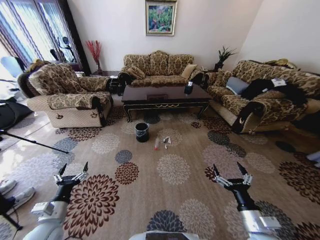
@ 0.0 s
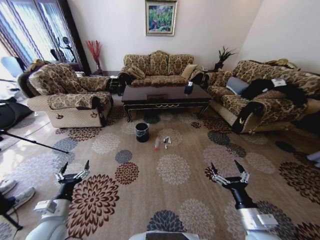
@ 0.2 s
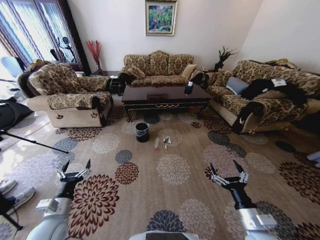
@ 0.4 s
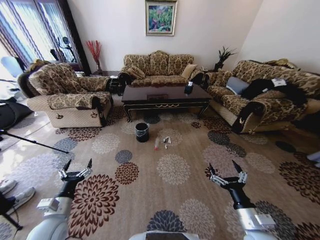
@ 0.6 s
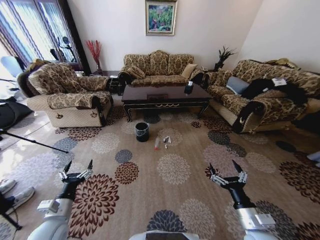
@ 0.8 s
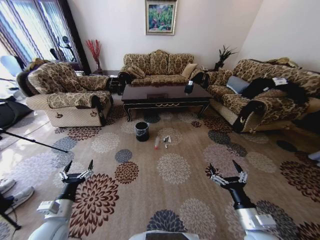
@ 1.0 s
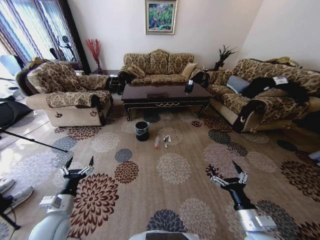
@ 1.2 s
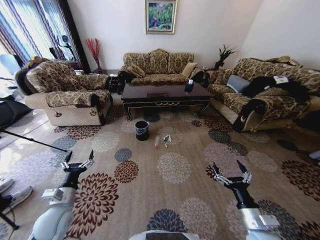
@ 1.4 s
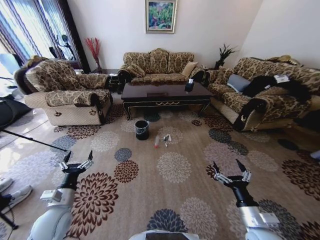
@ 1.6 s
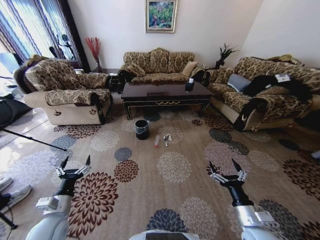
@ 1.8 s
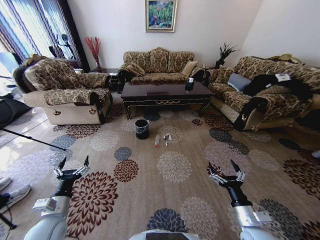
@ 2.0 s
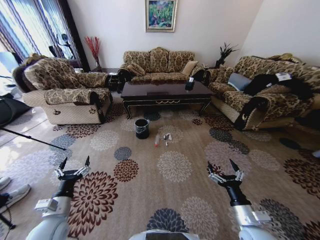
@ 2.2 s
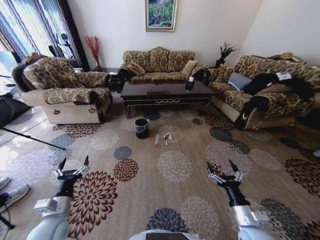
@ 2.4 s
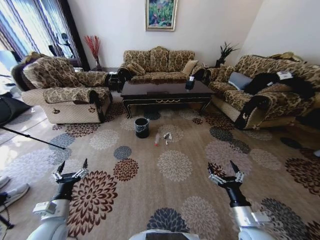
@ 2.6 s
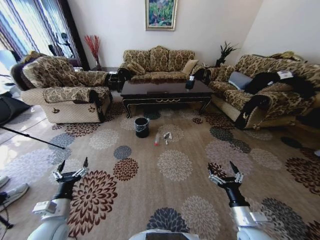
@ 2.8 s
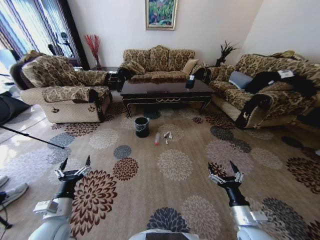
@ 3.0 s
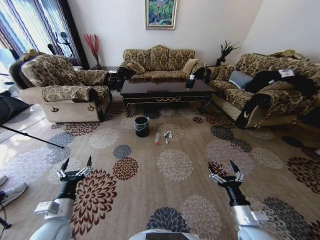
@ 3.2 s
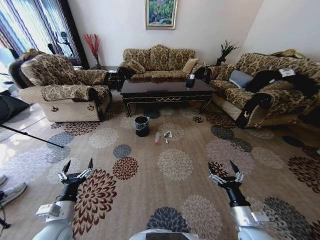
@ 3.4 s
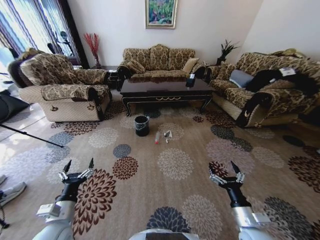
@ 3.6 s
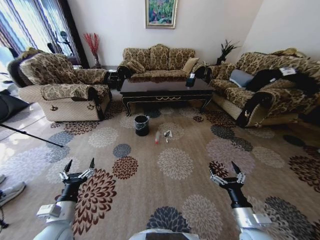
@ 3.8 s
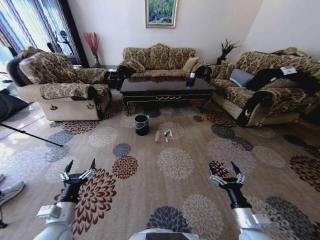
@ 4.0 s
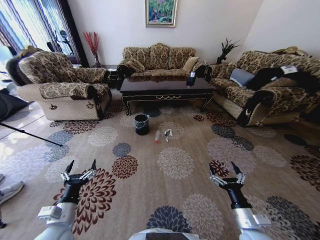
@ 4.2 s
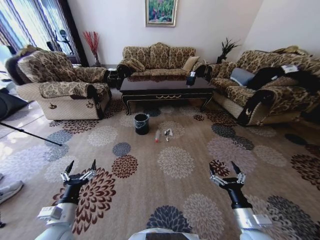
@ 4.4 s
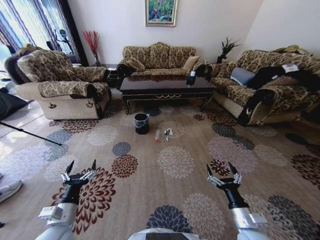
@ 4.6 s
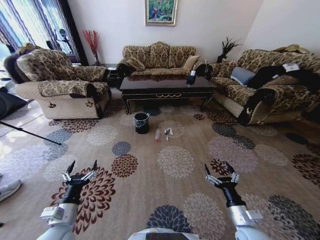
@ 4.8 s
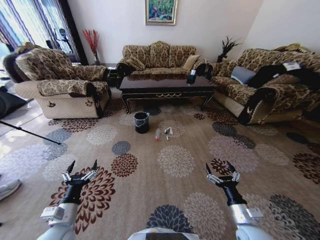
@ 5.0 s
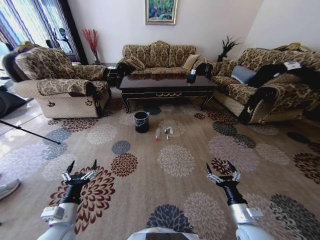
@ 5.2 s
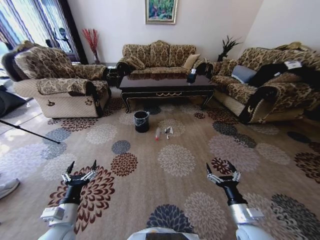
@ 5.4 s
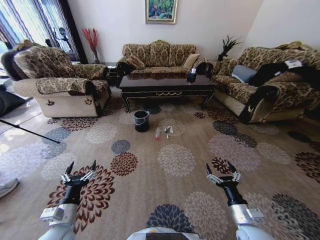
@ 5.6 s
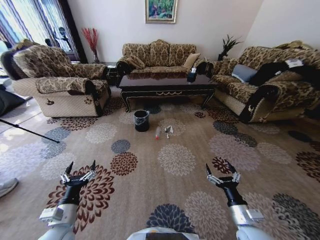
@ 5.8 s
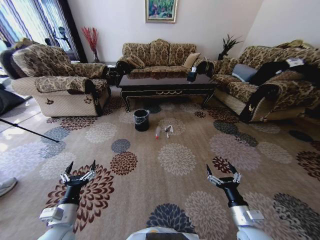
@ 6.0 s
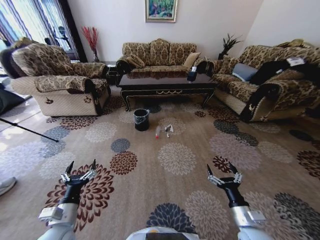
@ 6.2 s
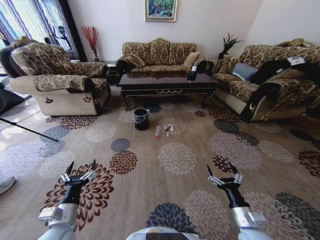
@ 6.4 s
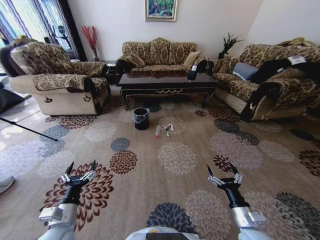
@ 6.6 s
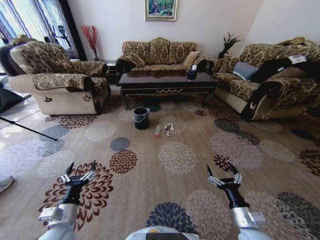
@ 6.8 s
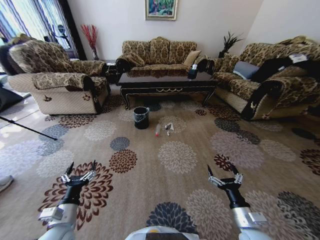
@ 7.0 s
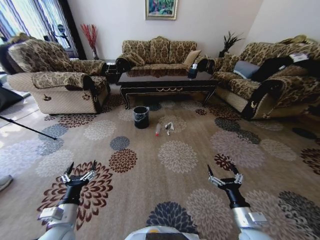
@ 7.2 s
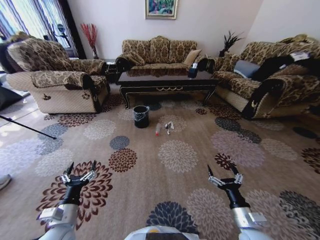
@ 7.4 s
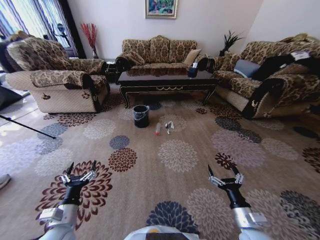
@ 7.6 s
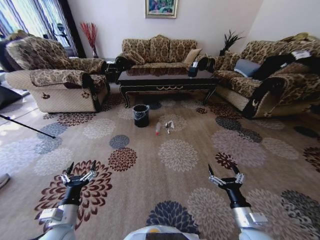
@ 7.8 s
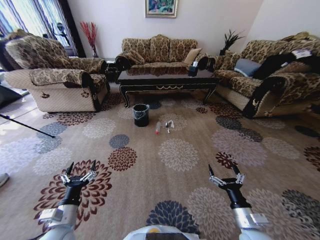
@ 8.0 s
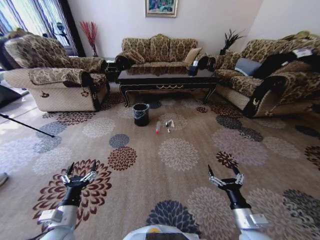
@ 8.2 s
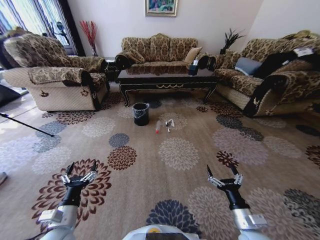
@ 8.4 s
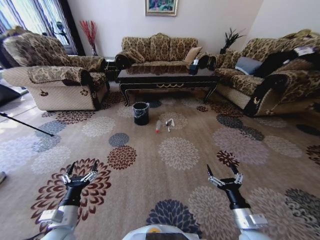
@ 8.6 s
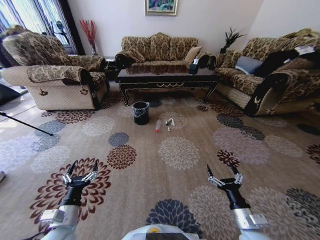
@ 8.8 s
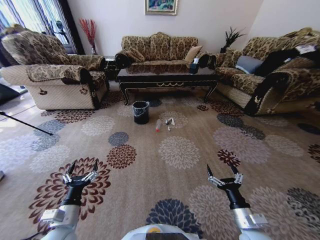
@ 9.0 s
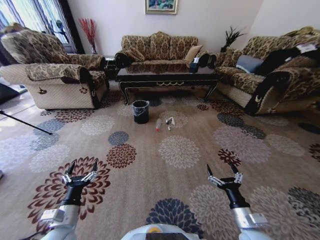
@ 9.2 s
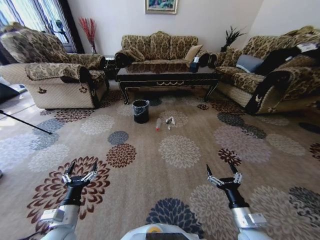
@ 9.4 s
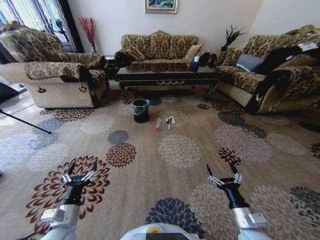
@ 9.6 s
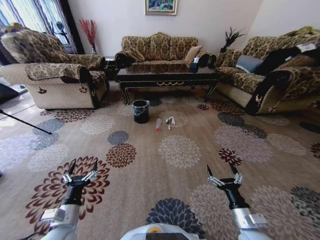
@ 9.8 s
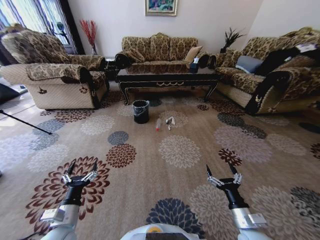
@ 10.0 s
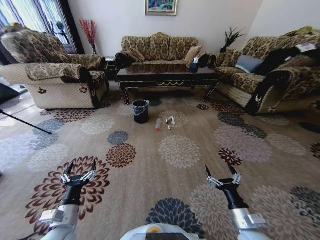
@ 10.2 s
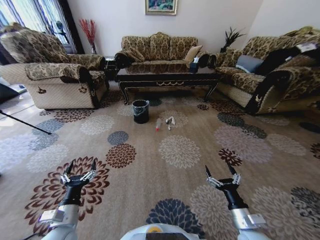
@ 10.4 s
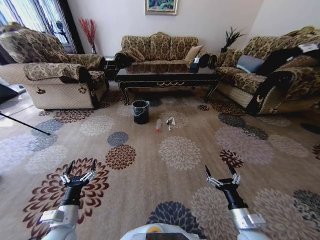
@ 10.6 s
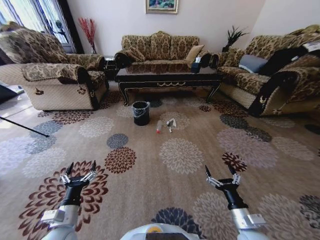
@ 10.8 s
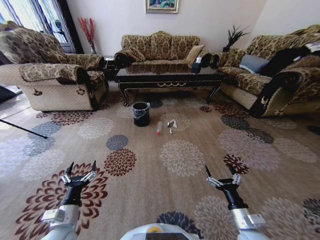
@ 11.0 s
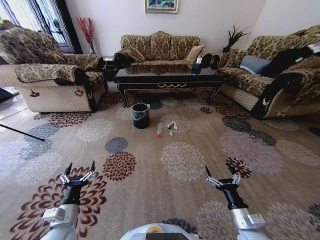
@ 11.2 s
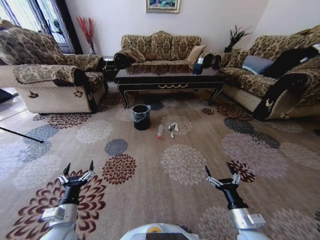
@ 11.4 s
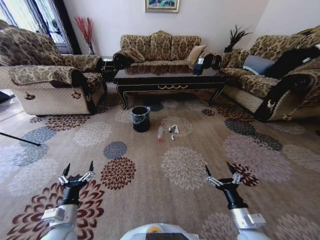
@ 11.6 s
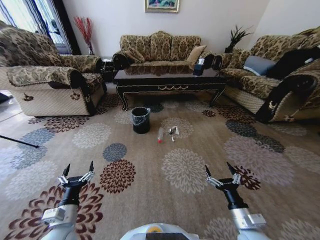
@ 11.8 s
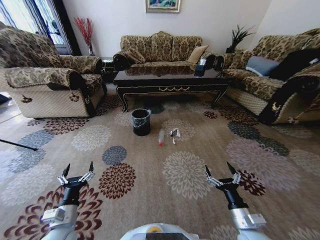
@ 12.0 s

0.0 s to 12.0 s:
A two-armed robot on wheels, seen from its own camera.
Task of the whole recording: Move to the front of the table and pick up the trash from the floor, then place it into the trash bin.
9.0 to 10.4 s: Neither gripper changes place.

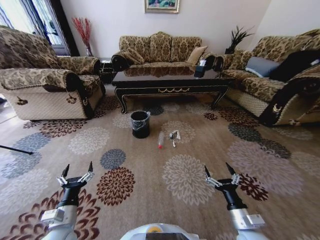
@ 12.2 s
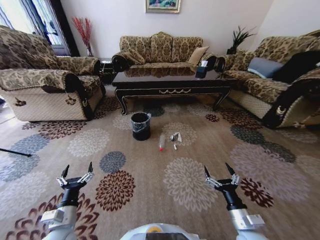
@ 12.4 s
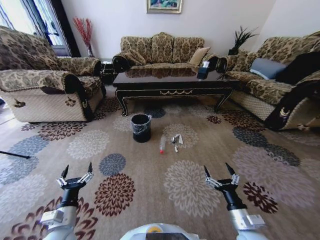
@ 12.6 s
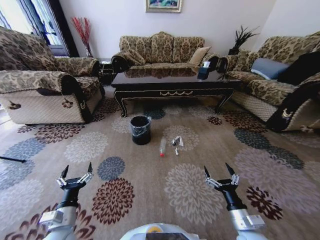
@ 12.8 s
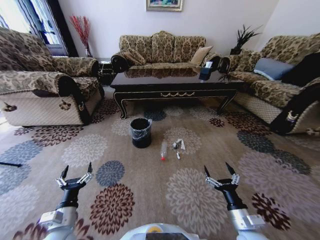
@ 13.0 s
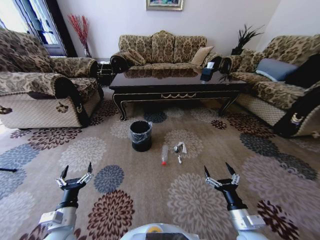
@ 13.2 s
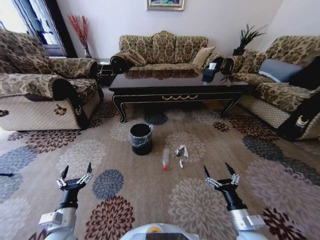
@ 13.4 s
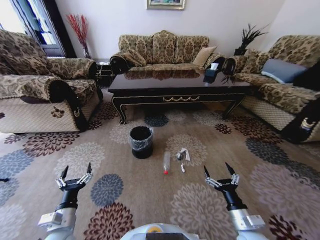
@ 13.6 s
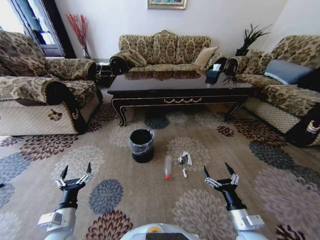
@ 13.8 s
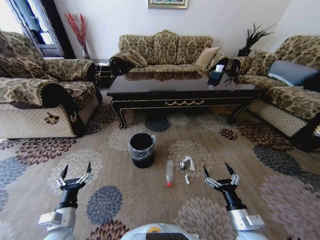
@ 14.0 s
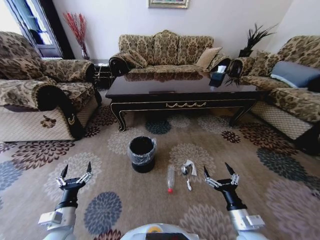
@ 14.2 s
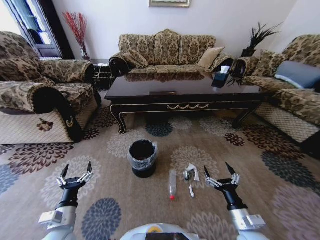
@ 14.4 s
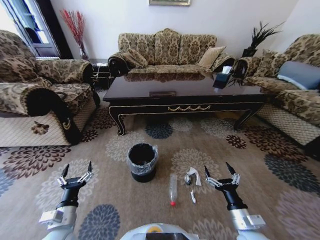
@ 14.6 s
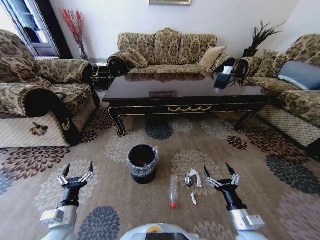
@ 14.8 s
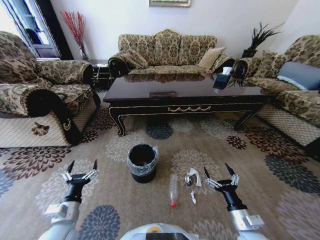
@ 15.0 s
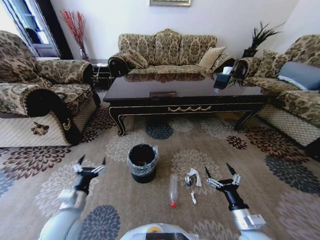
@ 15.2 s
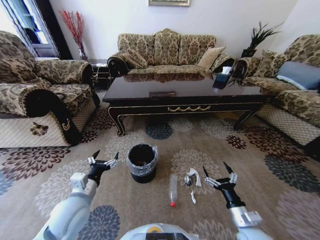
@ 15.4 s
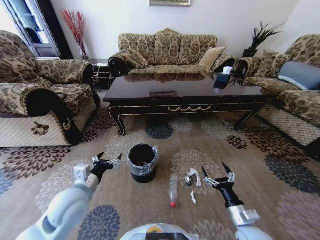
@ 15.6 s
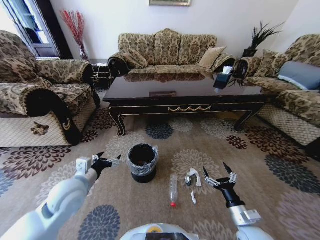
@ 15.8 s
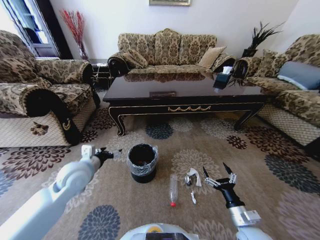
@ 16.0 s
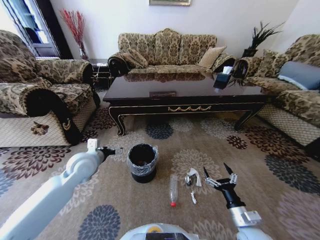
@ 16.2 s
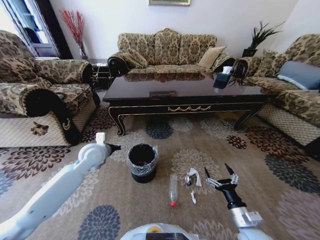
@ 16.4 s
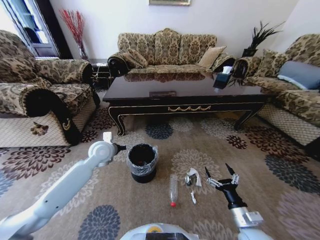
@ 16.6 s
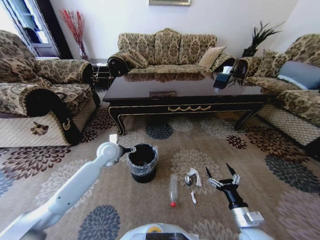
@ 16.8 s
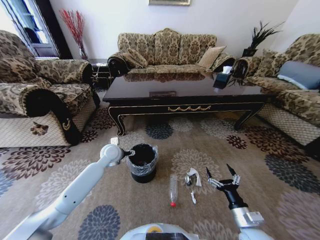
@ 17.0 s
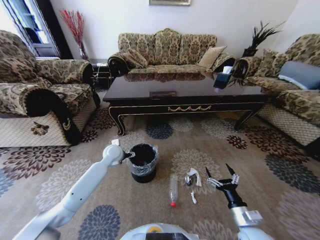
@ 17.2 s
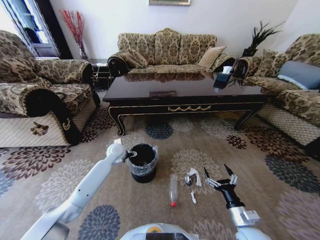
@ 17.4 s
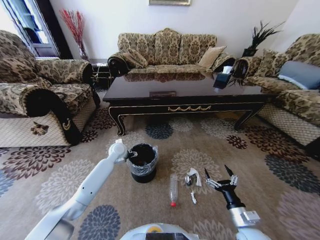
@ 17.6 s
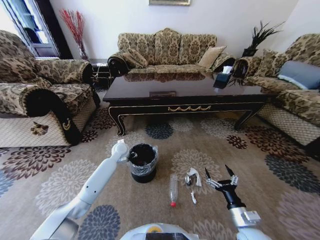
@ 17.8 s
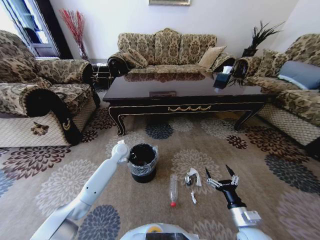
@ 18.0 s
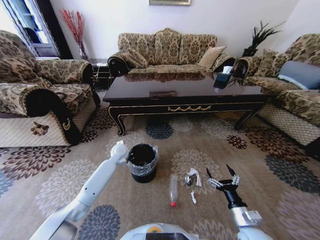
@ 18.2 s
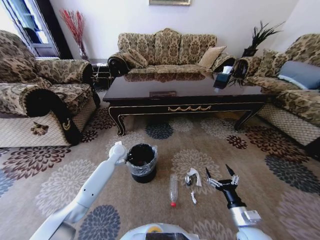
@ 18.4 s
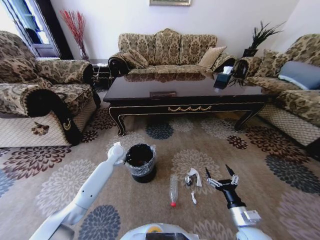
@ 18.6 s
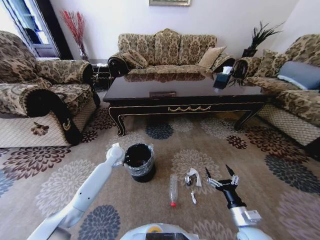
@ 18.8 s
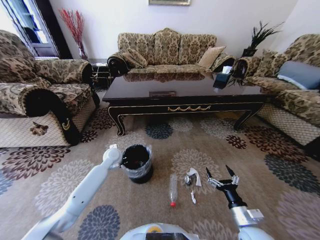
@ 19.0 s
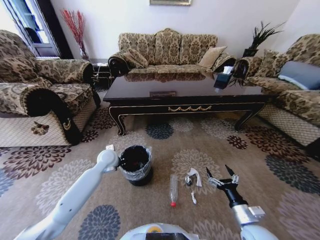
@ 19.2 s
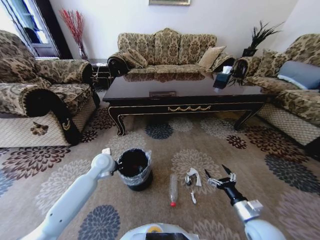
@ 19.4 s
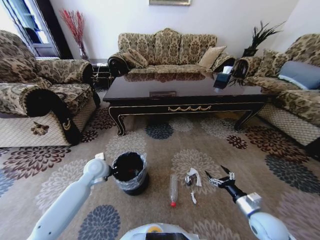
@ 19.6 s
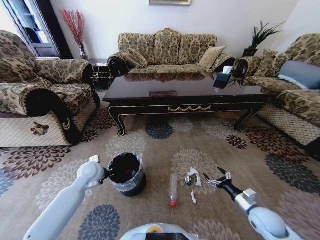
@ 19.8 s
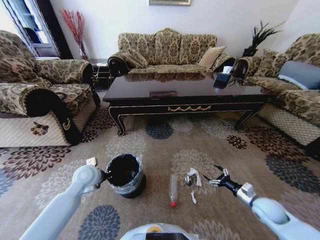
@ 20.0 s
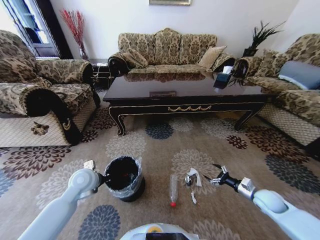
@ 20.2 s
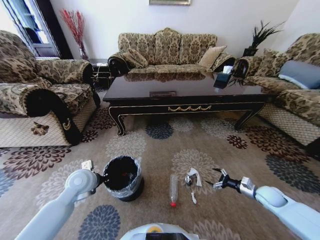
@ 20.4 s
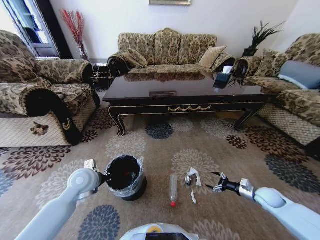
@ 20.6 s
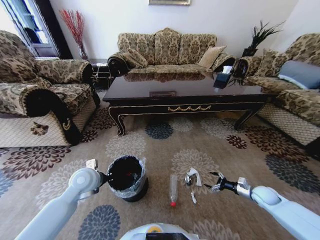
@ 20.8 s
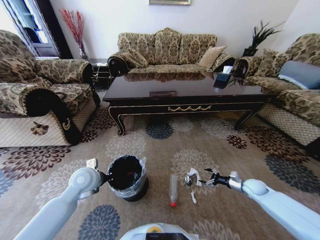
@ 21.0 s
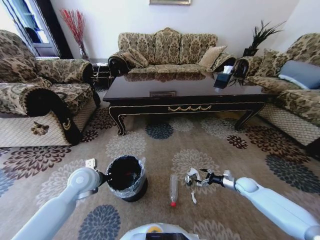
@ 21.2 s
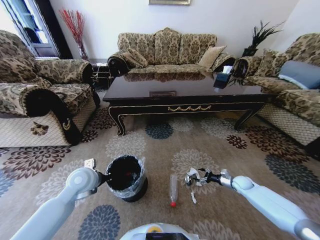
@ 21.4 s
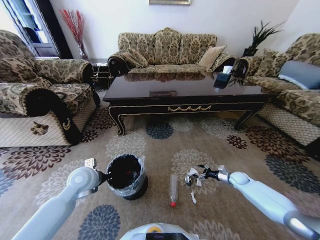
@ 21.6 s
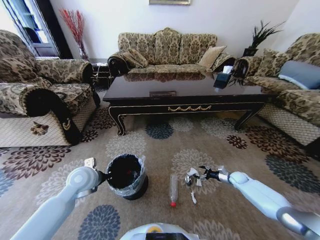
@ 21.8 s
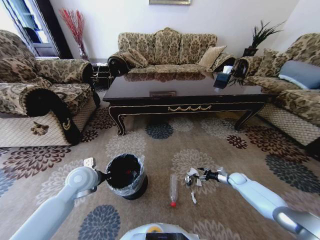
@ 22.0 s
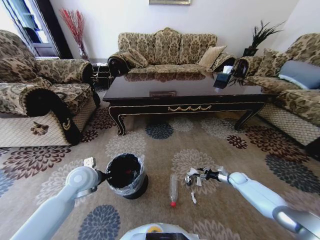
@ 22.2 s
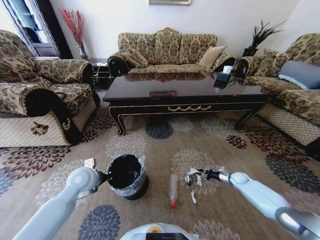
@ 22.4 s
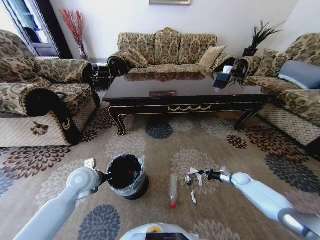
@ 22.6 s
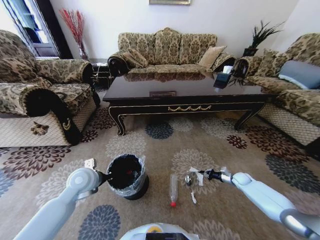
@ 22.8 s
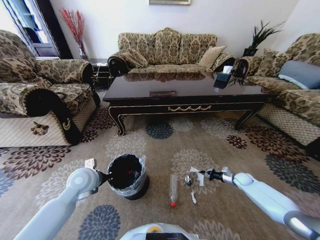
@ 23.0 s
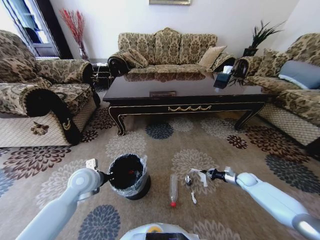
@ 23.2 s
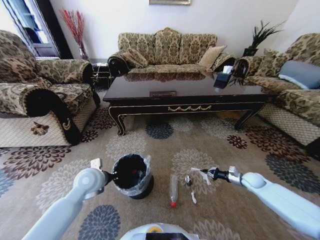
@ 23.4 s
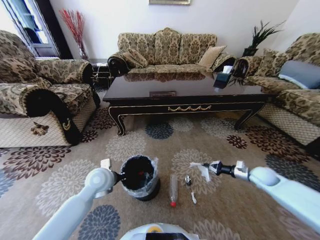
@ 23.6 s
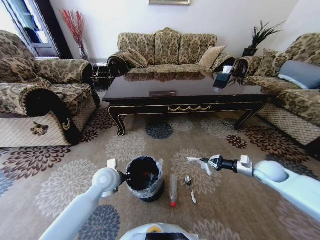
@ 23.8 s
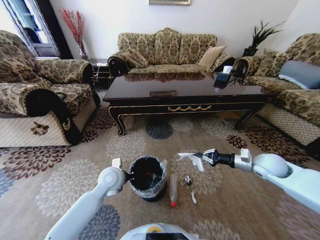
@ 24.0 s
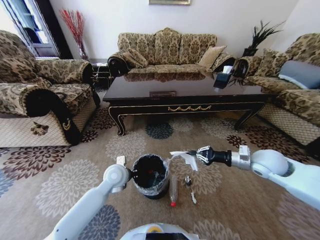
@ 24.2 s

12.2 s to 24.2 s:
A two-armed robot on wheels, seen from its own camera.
Task of the whole recording: Move to the front of the table and pick up the trash from the floor, then place it into the trash bin.
13.8 to 15.2 s: The left gripper shifts roughly 5 cm forward.
15.2 to 16.6 s: The left gripper moves forward, approximately 25 cm.
16.6 to 18.2 s: The left gripper moves downward and forward, approximately 10 cm, and closes its fingers.
18.2 to 19.8 s: The left gripper heads backward and to the left, covering about 15 cm. Meanwhile the right gripper moves to the right and forward, about 10 cm.
19.8 to 21.2 s: The right gripper goes roughly 20 cm forward, to the right and downward; the left gripper moves about 5 cm.
21.2 to 22.6 s: The right gripper shifts by some 5 cm, and closes its fingers.
22.6 to 24.2 s: The left gripper shifts about 10 cm to the right. The right gripper goes about 35 cm upward and to the left.
